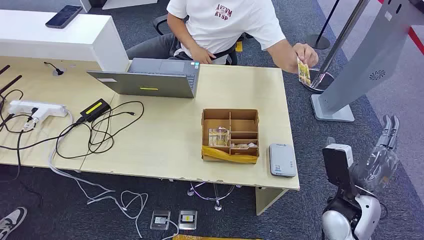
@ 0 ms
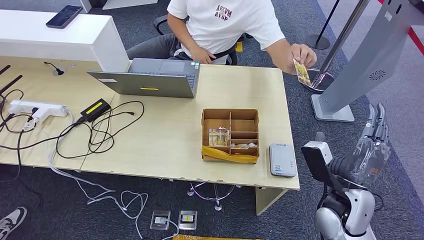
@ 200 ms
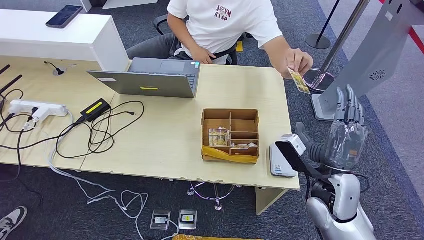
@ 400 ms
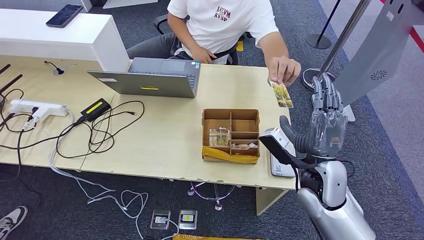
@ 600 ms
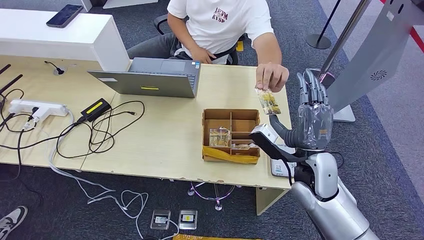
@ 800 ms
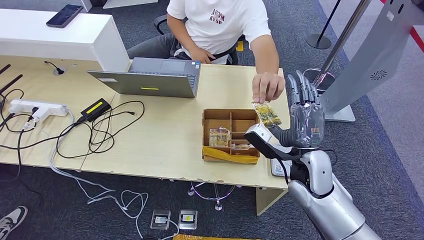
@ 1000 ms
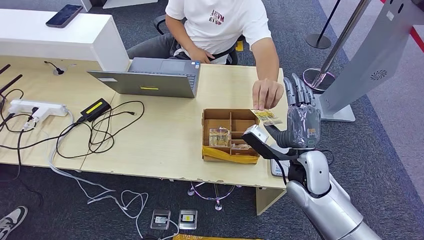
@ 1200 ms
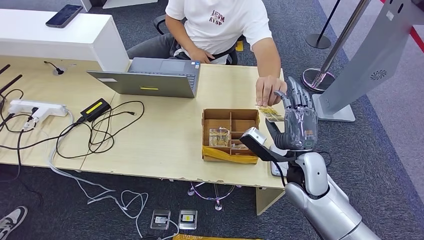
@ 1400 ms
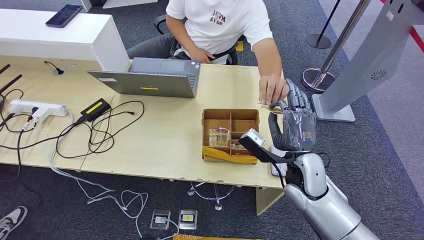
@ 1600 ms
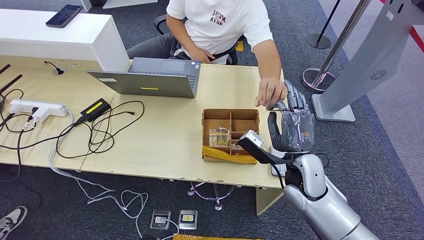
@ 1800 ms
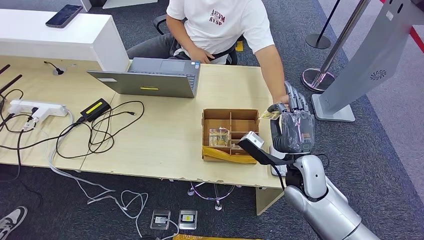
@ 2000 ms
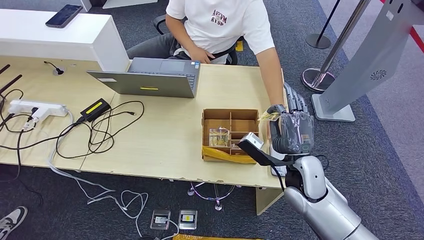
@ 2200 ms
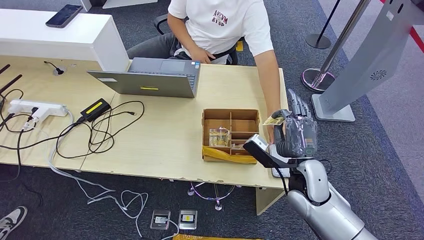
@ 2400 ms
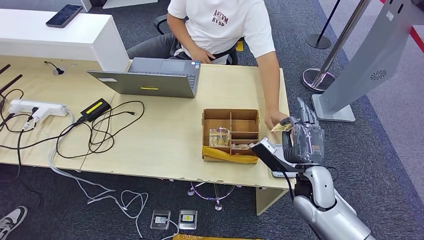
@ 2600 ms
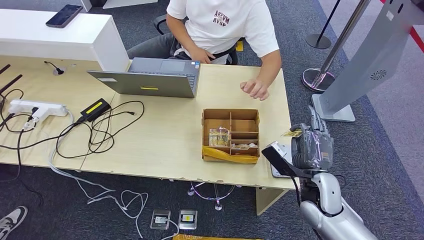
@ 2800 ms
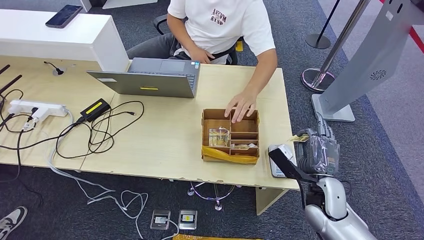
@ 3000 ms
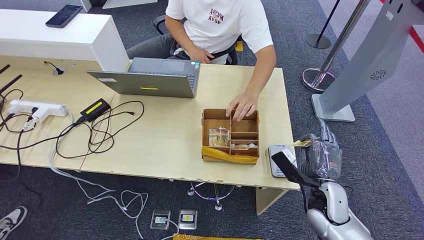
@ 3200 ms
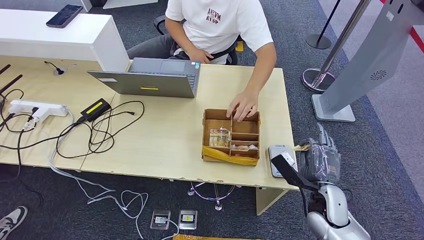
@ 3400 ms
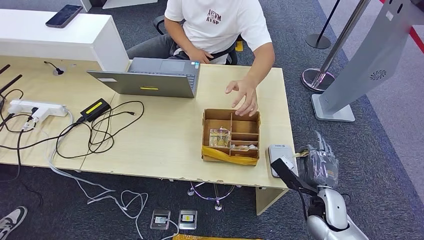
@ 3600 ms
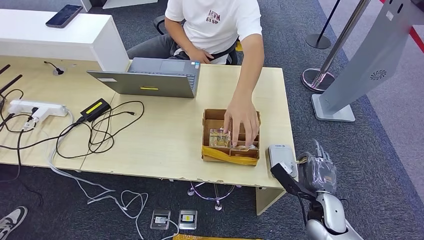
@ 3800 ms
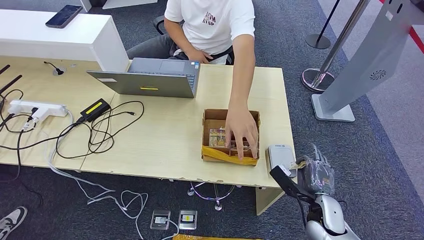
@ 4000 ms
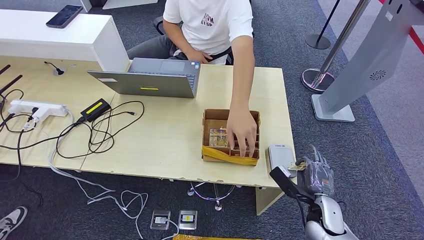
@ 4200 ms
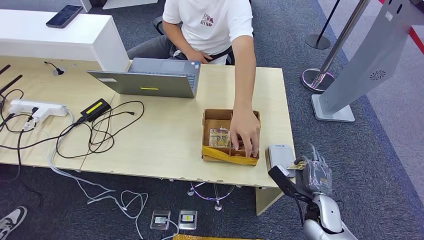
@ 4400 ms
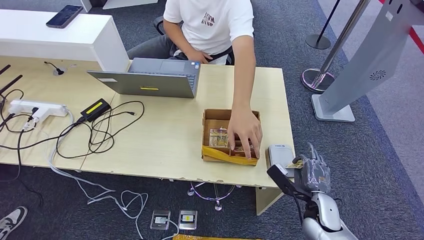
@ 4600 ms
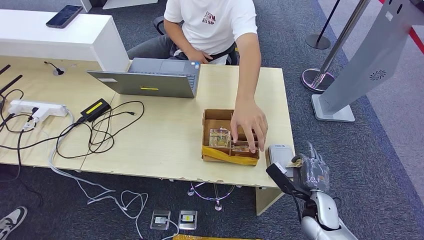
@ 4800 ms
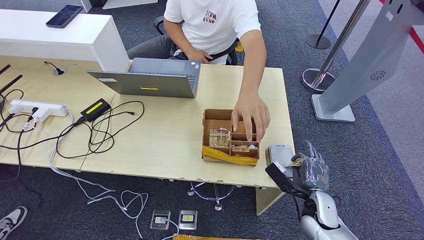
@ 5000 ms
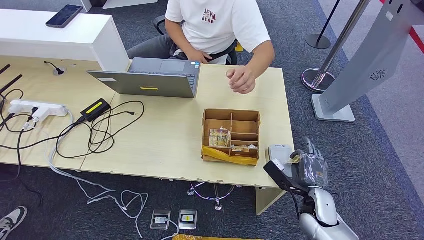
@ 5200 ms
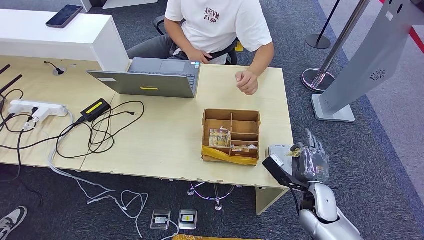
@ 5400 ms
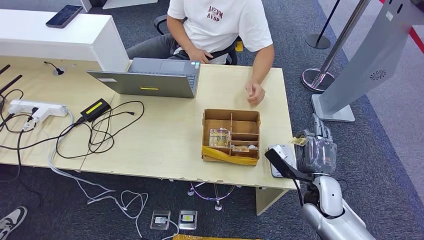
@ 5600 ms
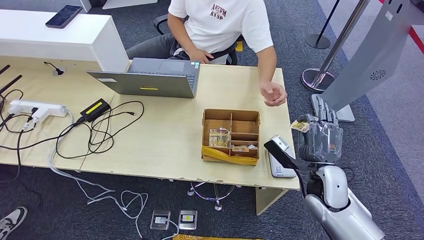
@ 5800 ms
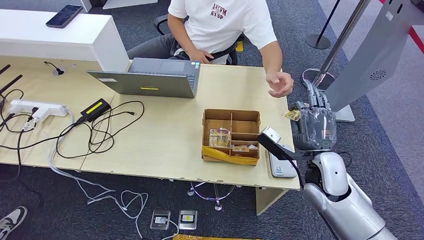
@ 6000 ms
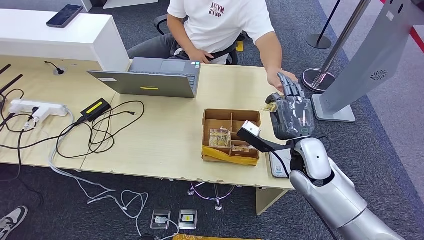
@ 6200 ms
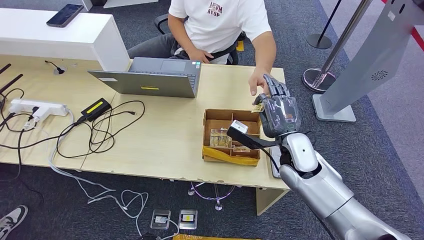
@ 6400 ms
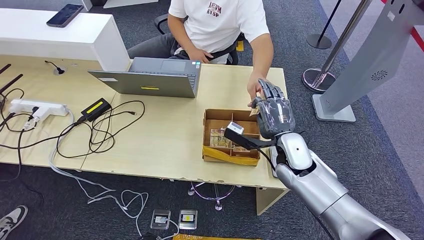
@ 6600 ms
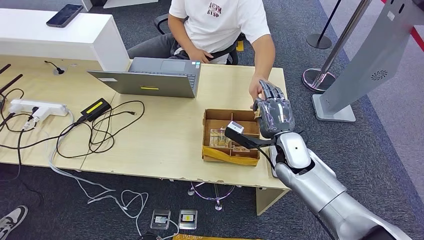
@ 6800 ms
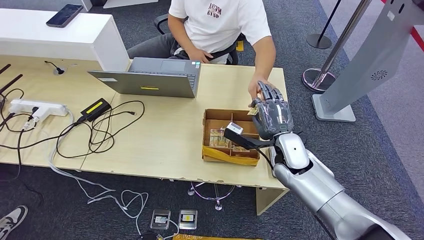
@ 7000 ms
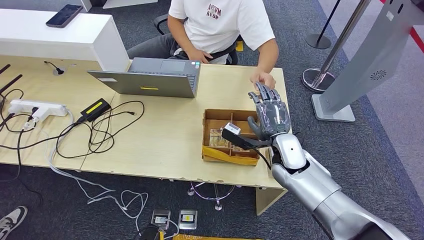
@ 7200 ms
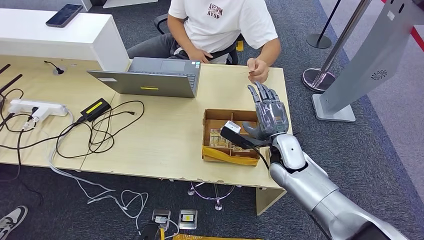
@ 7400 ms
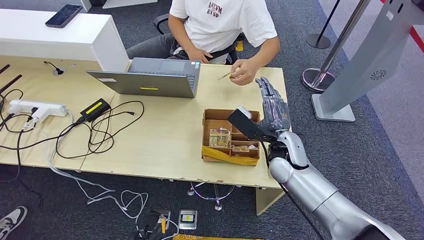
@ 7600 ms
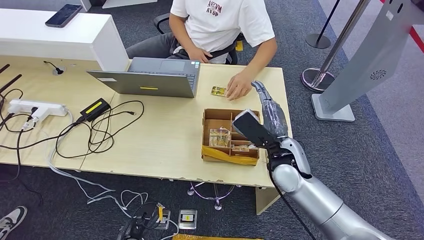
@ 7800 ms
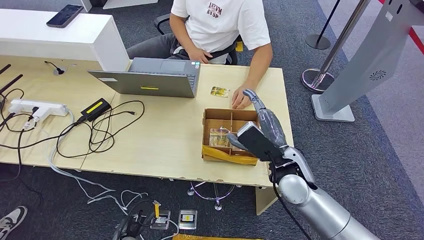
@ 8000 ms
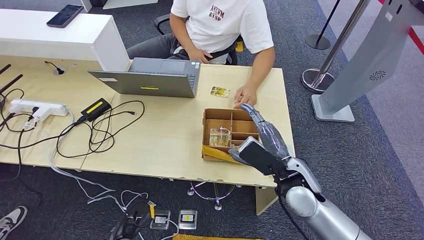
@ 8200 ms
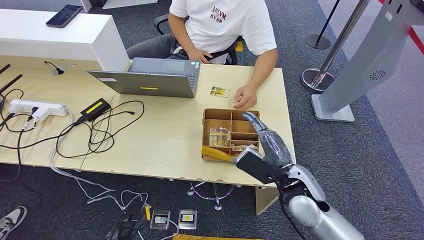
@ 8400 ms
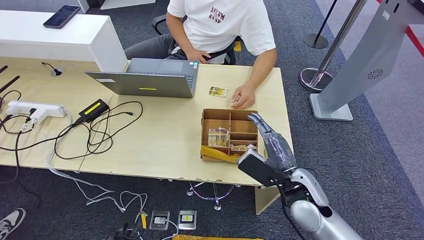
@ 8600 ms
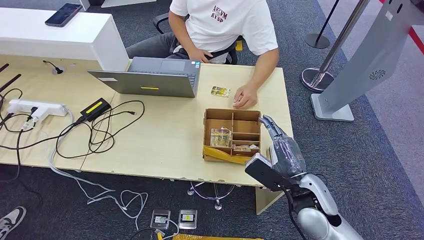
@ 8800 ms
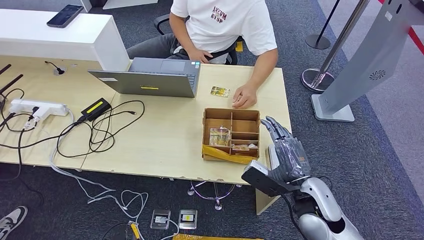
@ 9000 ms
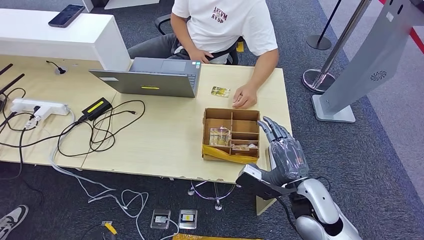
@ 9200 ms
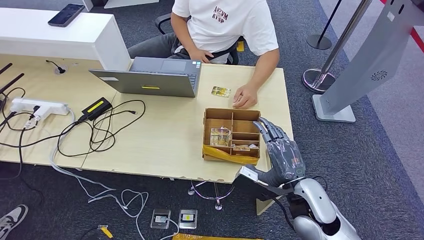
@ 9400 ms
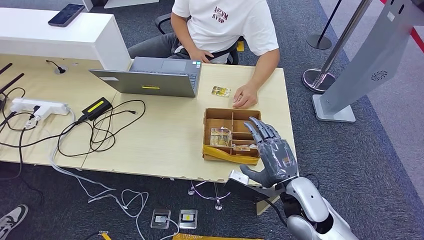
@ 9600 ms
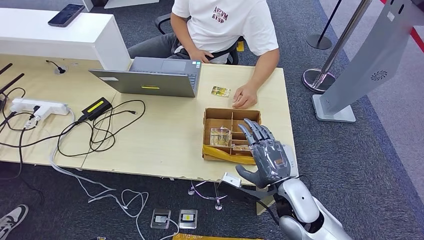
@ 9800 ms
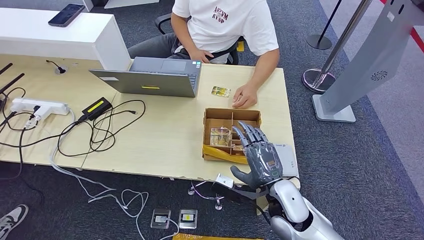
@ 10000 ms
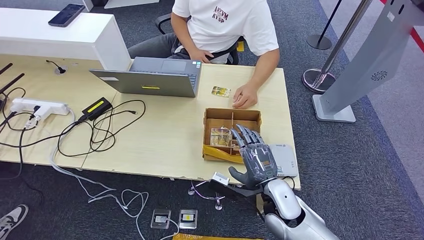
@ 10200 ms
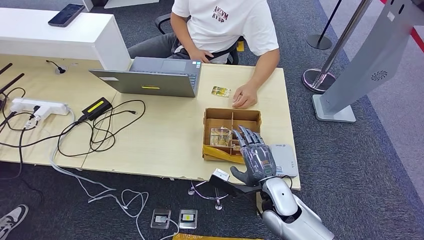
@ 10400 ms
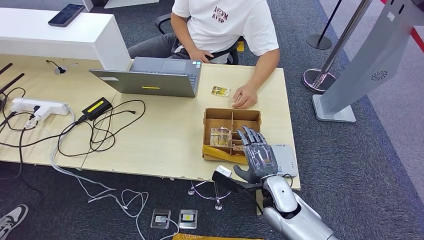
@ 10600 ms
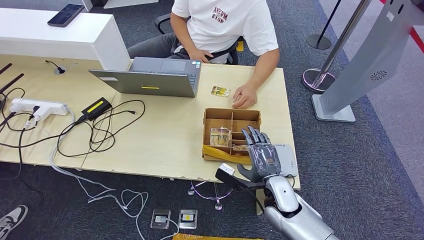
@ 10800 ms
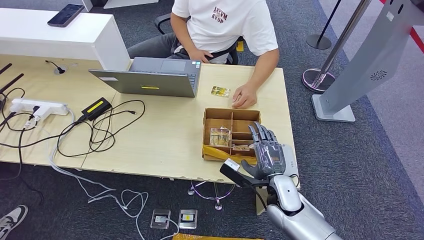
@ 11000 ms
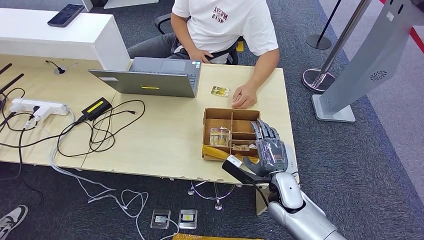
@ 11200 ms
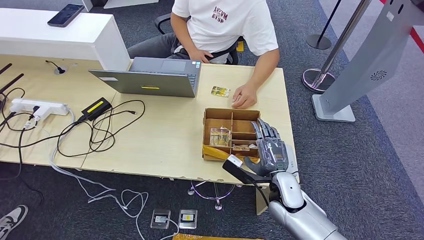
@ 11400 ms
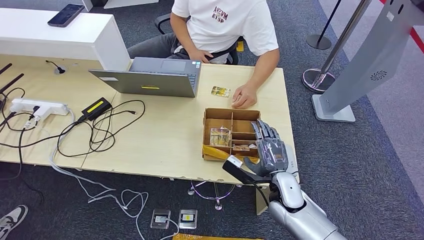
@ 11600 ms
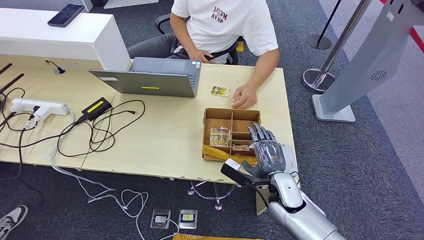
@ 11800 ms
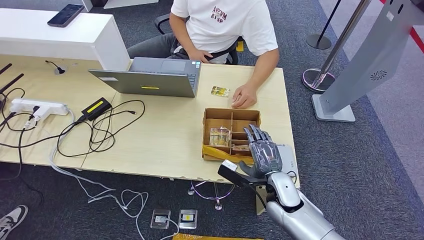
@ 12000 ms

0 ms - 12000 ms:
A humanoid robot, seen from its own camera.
Step, 0 ms - 4000 ms: Take the ID card from the person's hand.
Step, 4200 ms - 5800 ms: Place the ID card on the card reader.
Step, 6400 ms - 8200 ms: Hand the ID card to the person.
1600 ms - 3000 ms: The right hand heads to the right and downward, covering about 10 cm.
3000 ms - 4400 ms: The right hand is displaced downward by roughly 5 cm.
4400 ms - 6000 ms: The right hand goes roughly 15 cm upward.
6000 ms - 7600 ms: The right hand is displaced to the left and forward by some 10 cm. The left hand moves forward, approximately 10 cm.
7600 ms - 9000 ms: The right hand heads backward and to the right, covering about 15 cm. The left hand goes roughly 5 cm backward.
9000 ms - 10400 ms: The left hand travels to the left and downward by some 10 cm; the right hand shifts roughly 10 cm downward and to the left.
10400 ms - 12000 ms: There are only small adjustments of the hands.

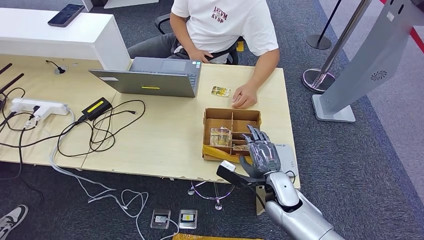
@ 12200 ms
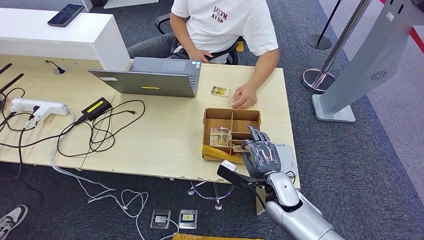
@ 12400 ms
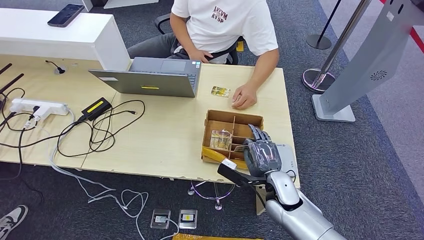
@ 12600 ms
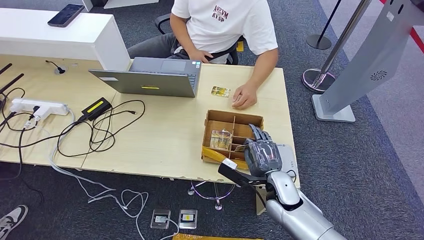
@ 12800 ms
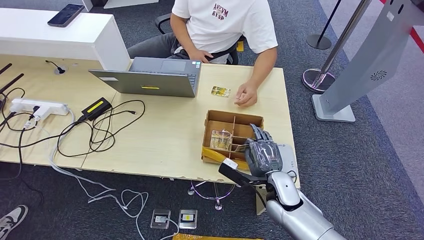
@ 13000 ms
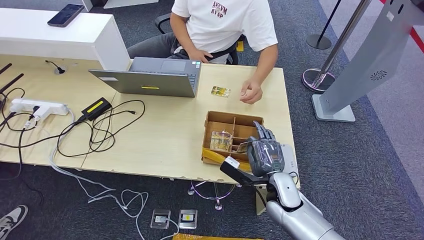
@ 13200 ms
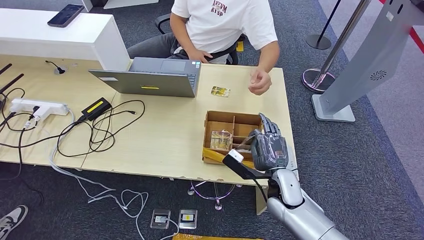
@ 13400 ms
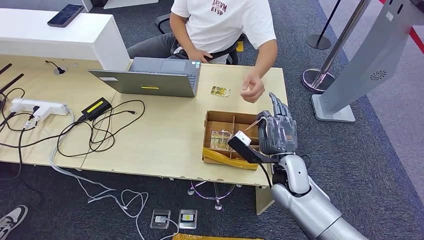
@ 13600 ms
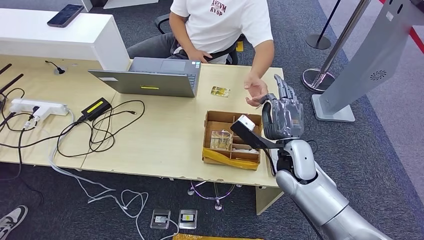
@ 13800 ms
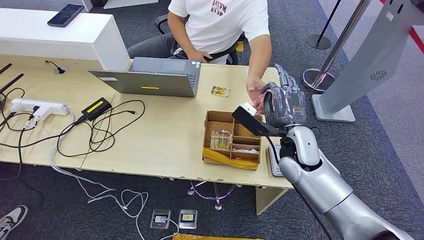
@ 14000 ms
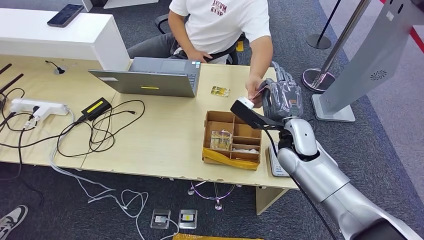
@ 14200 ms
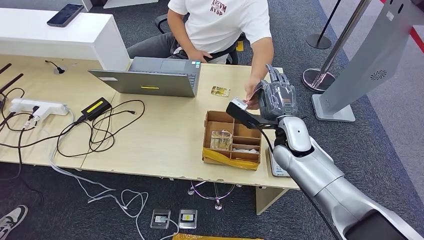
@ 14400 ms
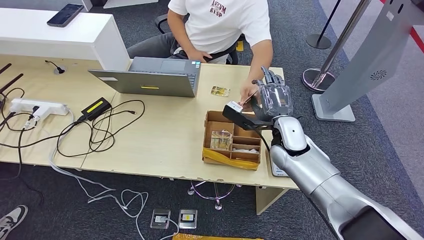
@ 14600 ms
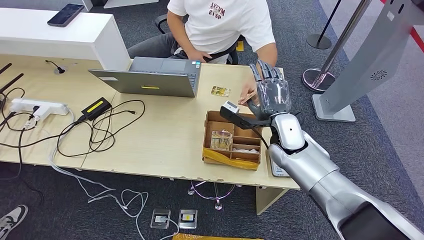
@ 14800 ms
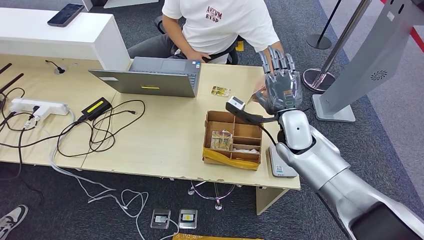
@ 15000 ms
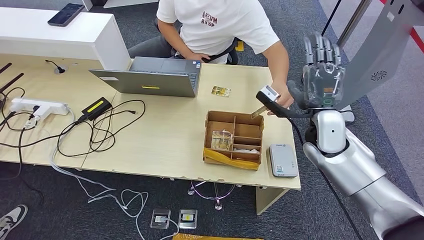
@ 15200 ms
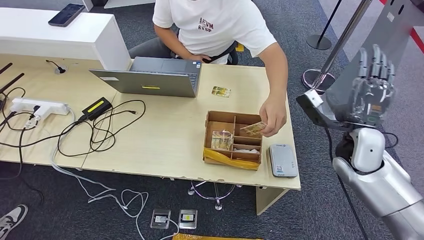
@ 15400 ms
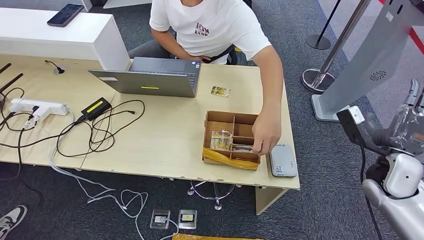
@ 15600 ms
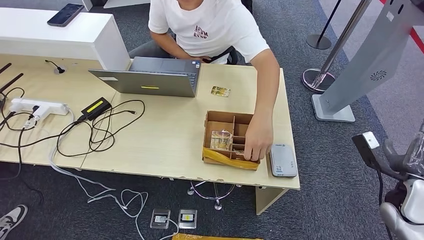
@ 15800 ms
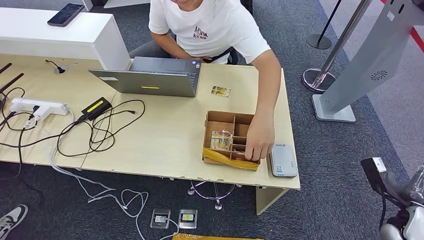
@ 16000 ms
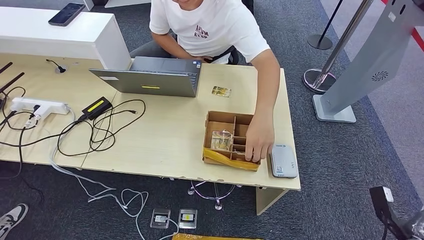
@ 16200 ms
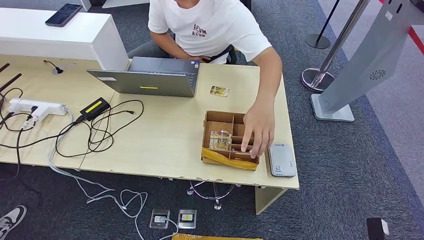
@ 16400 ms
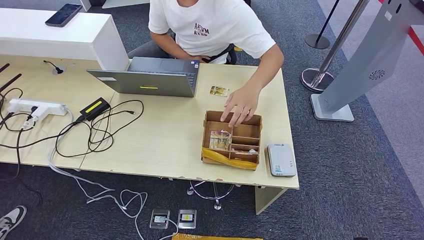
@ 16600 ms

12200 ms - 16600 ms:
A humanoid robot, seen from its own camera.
Step, 14400 ms - 16600 ms: Hand the room key to the person.
12200 ms - 13600 ms: The right hand travels upward by roughly 5 cm.
